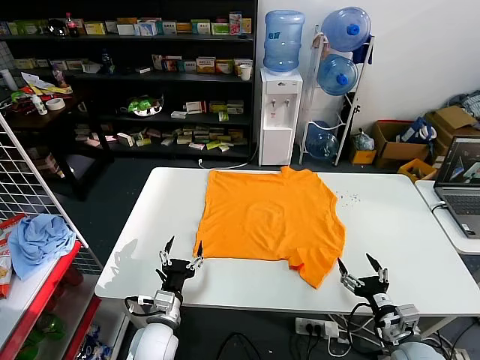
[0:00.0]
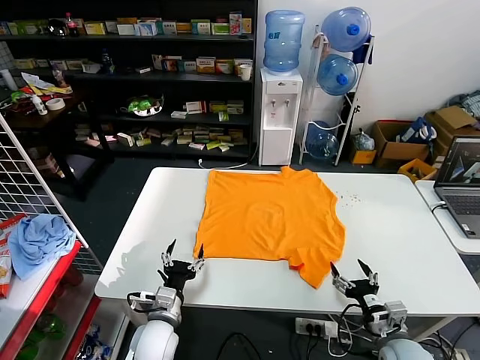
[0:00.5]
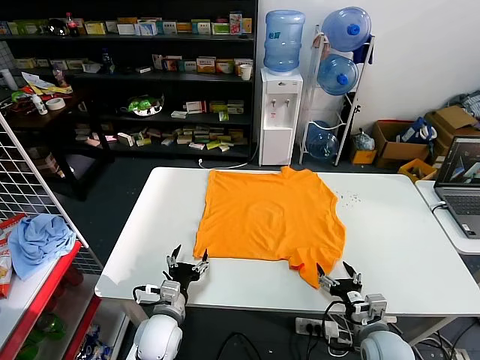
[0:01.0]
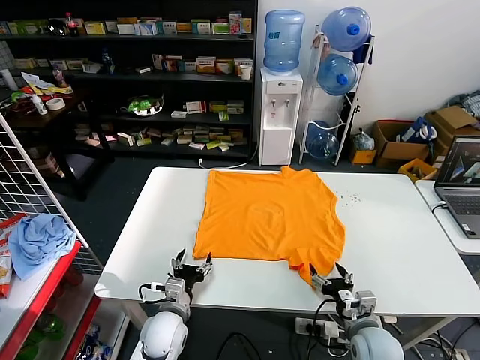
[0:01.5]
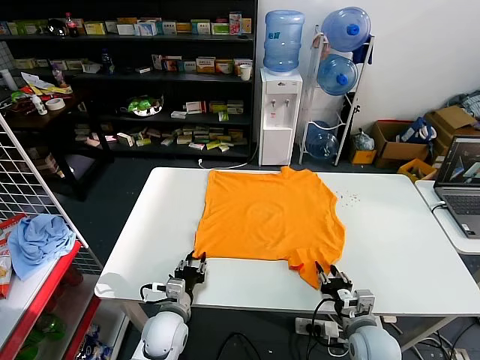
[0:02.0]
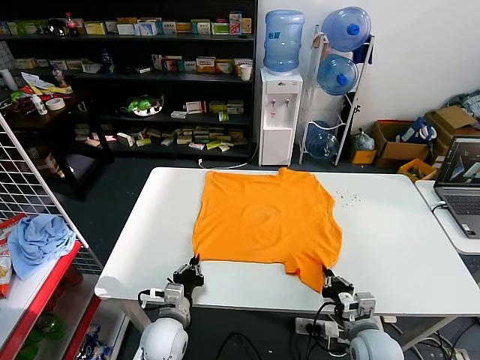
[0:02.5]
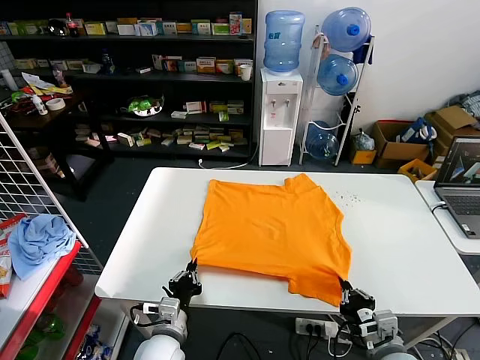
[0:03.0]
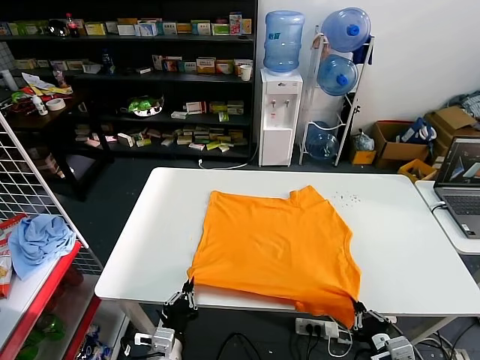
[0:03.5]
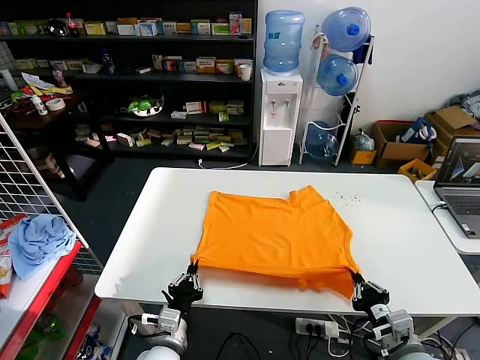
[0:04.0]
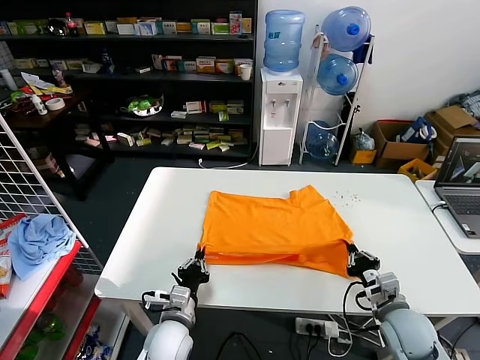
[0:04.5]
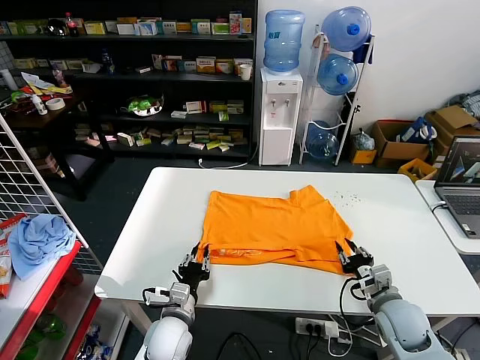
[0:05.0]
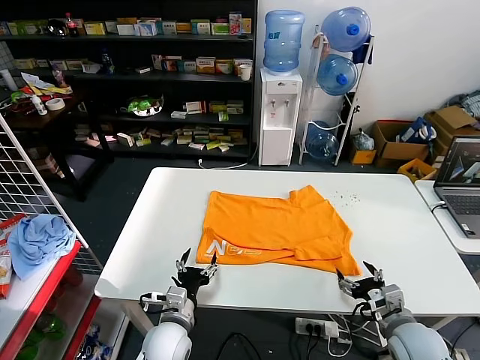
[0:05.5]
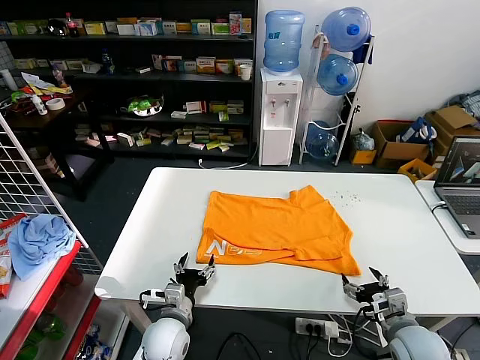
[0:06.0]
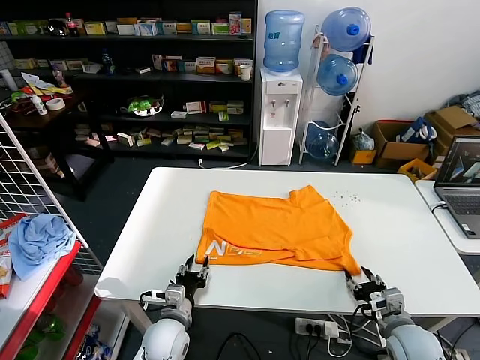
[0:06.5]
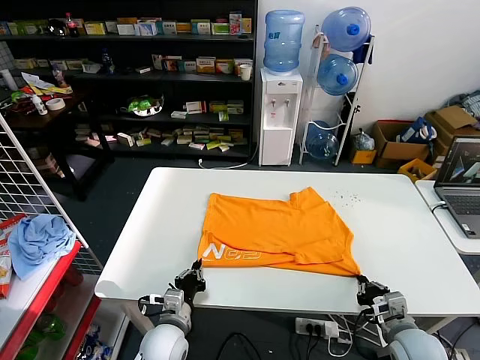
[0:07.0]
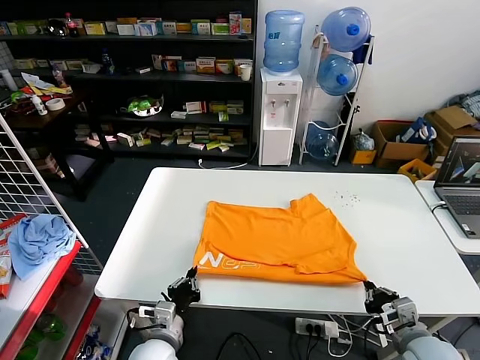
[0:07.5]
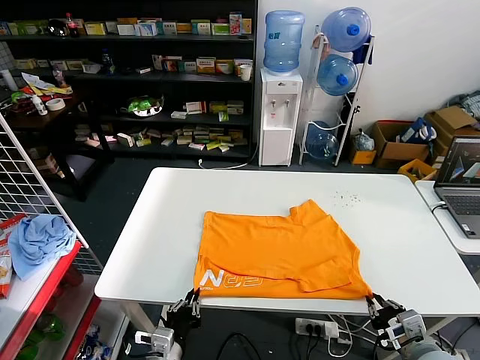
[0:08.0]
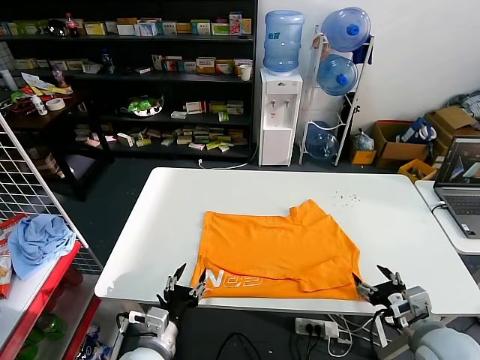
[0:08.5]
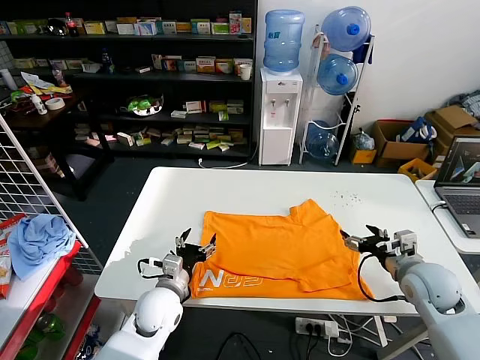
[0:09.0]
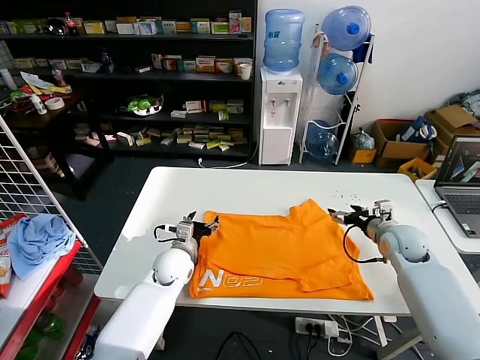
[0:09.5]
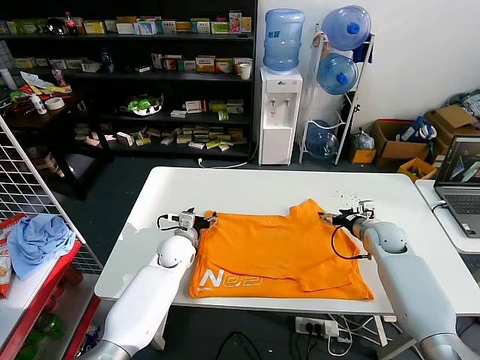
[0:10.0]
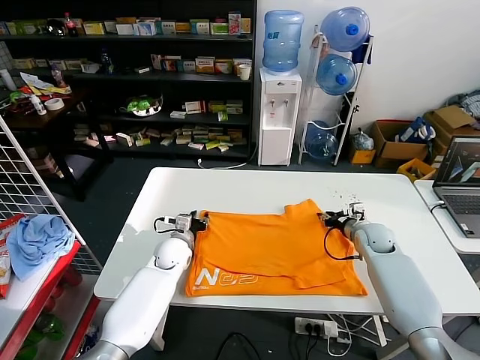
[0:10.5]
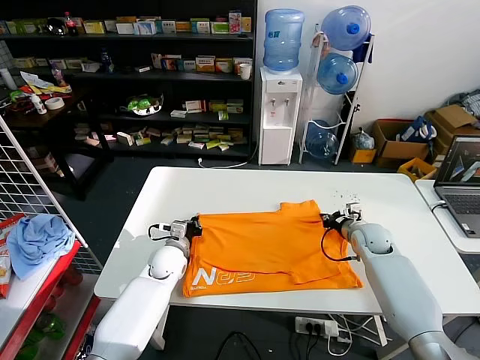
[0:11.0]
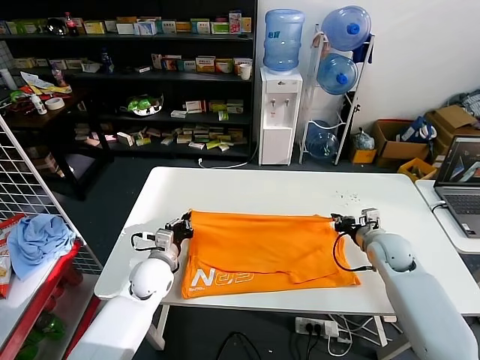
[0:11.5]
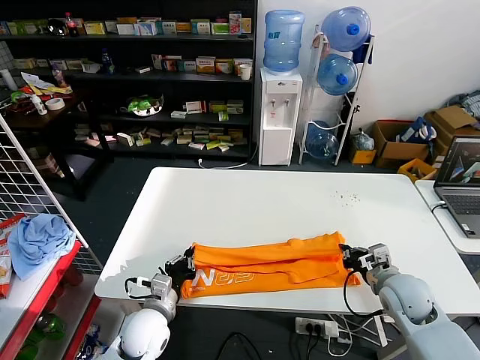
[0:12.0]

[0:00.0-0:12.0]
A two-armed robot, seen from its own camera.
Task of the whole recording: fold and organize the clothes.
Step, 0:00.0 to 0:01.5: use both grippers simultaneously to clamp the lower edge of the clothing fabric.
0:02.0 to 0:04.0: The left gripper travels backward by roughly 10 cm, and closes. Meanwhile the right gripper heads upward and backward, covering some 10 cm.
0:04.0 to 0:06.0: The left gripper shifts roughly 5 cm forward, and opens its fingers, while the right gripper opens its fingers.
0:06.0 to 0:08.0: The right gripper heads backward, covering about 5 cm, and closes its fingers; the left gripper travels backward by some 10 cm, and closes up.
0:08.0 to 0:10.0: The two grippers go about 30 cm forward. The left gripper opens. The right gripper opens up.
0:10.0 to 0:12.0: The grippers both shift backward by roughly 20 cm. The right gripper closes its fingers, while the left gripper closes.

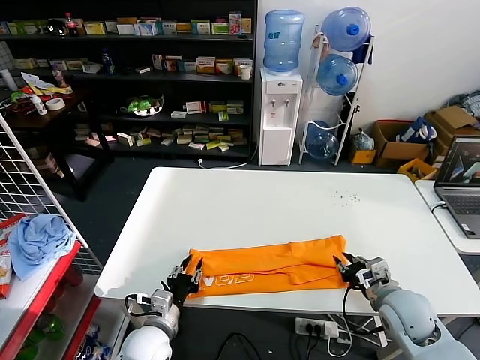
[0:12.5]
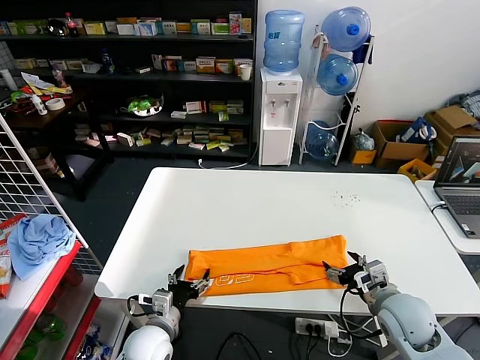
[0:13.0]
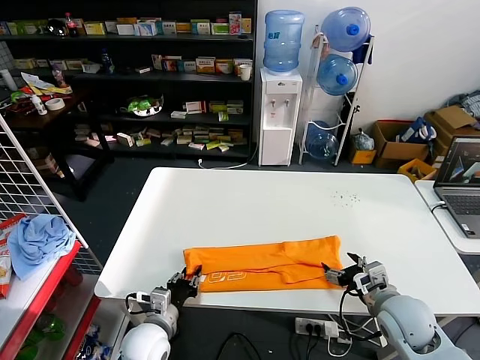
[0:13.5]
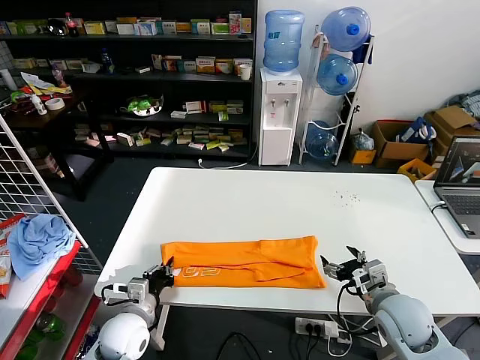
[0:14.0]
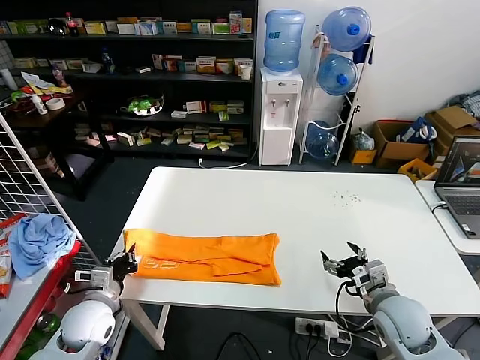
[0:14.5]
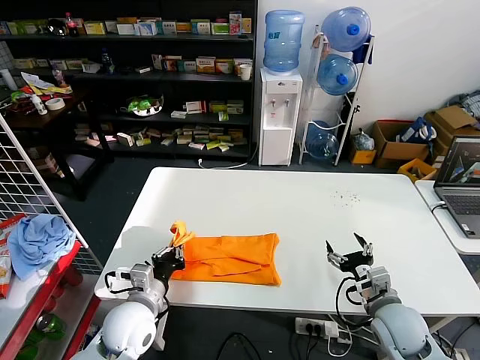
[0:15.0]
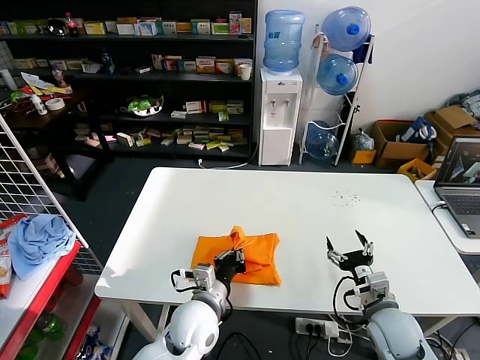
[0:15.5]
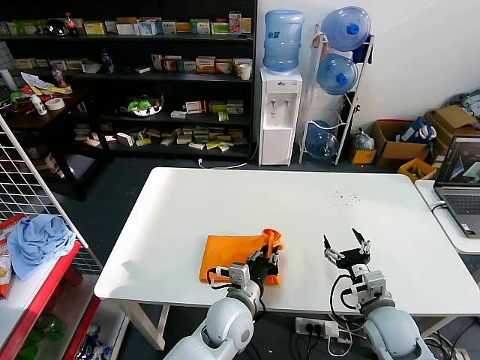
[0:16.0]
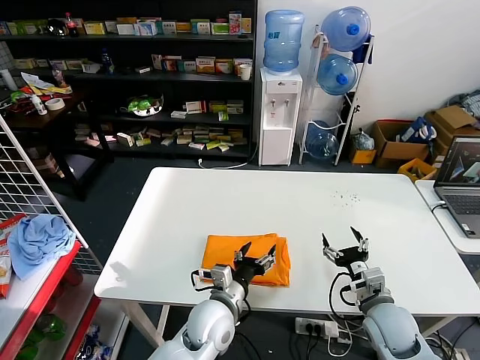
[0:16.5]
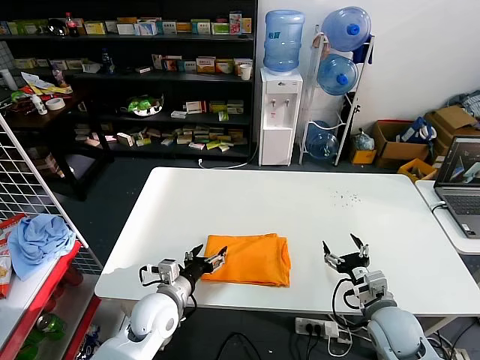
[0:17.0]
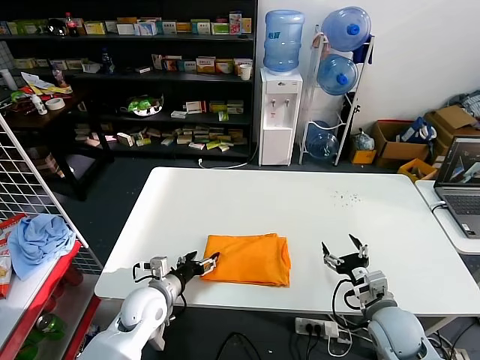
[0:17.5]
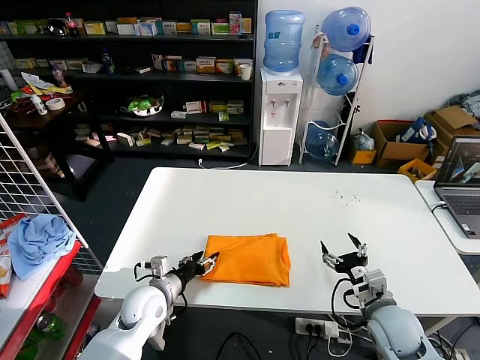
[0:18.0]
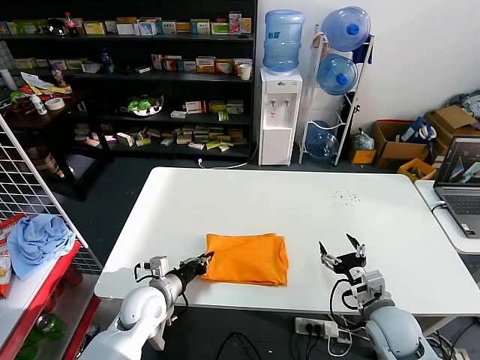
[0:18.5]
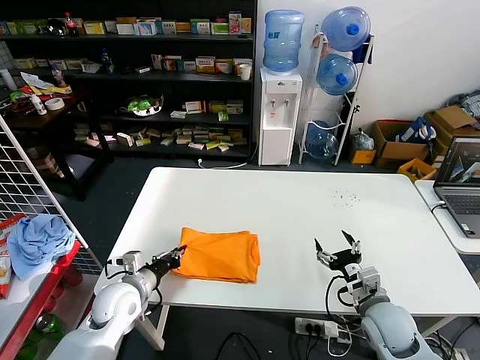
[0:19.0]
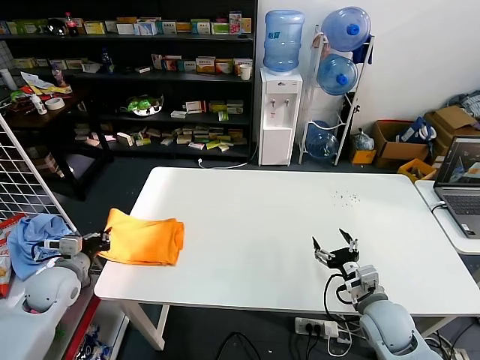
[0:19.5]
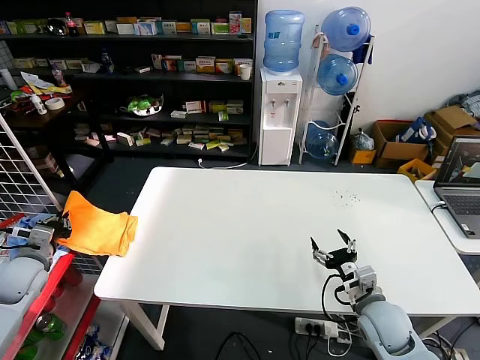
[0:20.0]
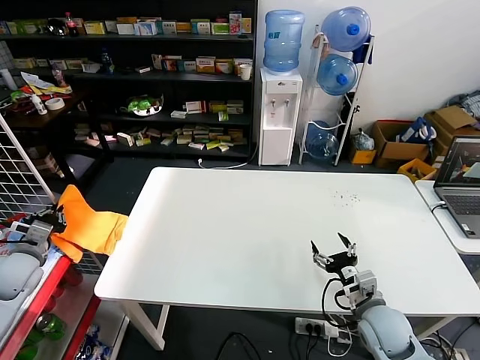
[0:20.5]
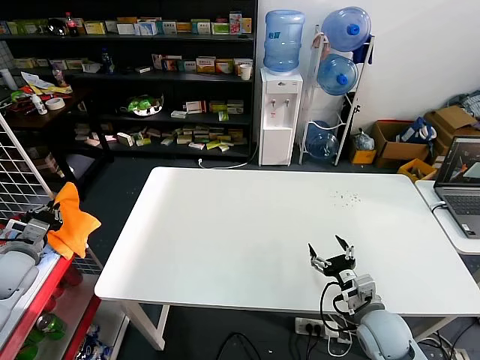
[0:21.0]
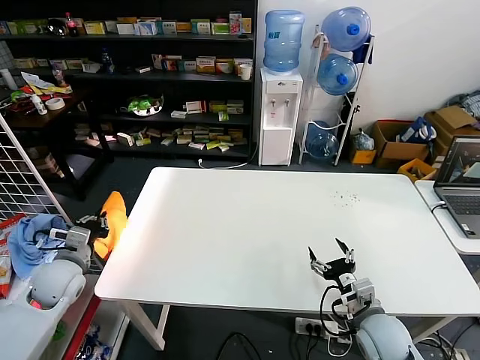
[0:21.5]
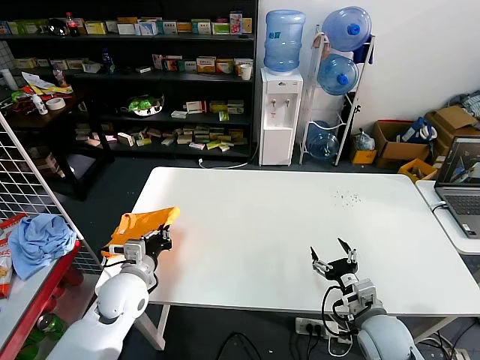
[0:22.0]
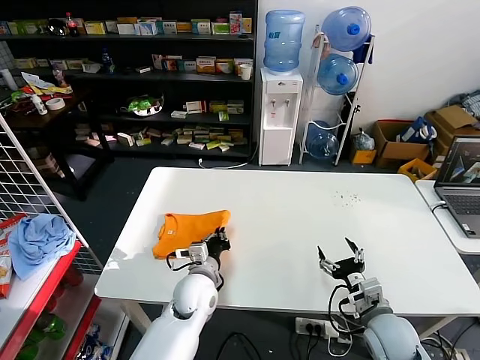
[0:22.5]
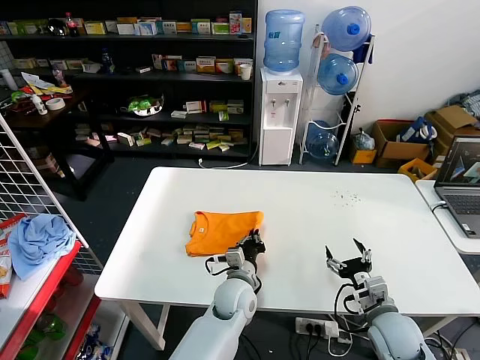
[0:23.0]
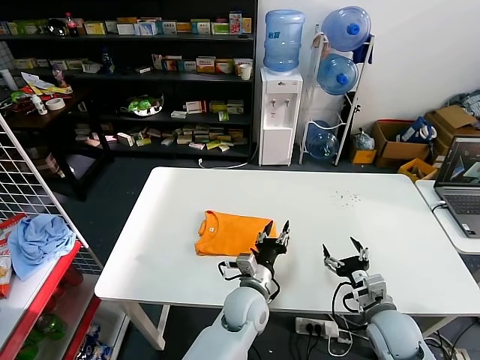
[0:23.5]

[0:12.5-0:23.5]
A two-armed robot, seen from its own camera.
Task of the whole recording: fold and organize the clothes.
Step, 0:12.5 to 0:23.5: Flip the folded clothes over with left gripper.
0:12.5 to 0:14.5: The left gripper travels to the left by approximately 15 cm, and closes its fingers. Meanwhile the right gripper opens its fingers.
0:14.5 to 0:16.0: The left gripper goes some 30 cm to the right.
0:16.0 to 0:18.0: The left gripper moves to the left, some 20 cm, and opens.
0:18.0 to 0:20.0: The left gripper shifts approximately 25 cm to the left, and closes up.
0:20.0 to 0:21.5: The left gripper is displaced to the right by about 5 cm.
0:21.5 to 0:23.5: The left gripper moves to the right, some 40 cm, and opens up.

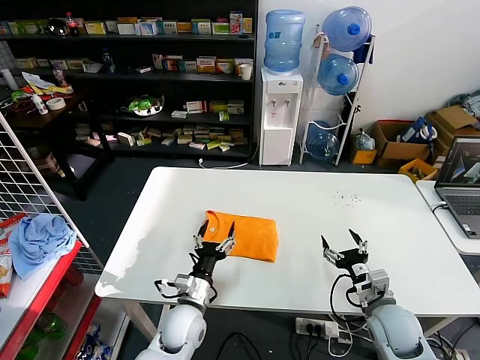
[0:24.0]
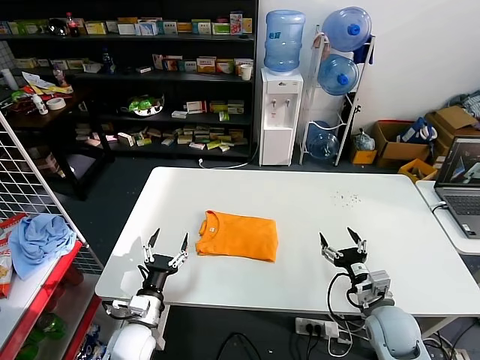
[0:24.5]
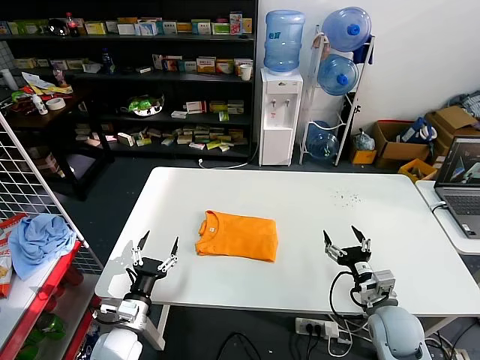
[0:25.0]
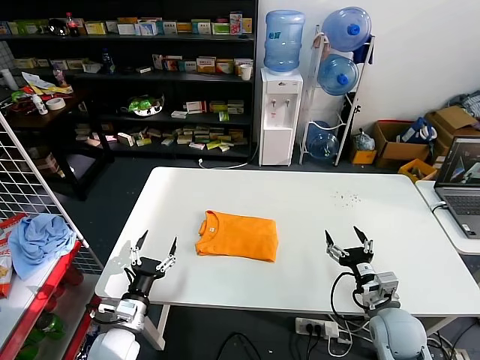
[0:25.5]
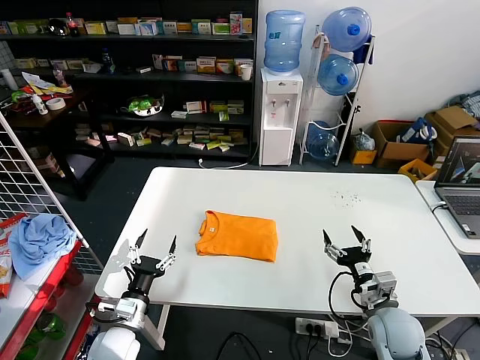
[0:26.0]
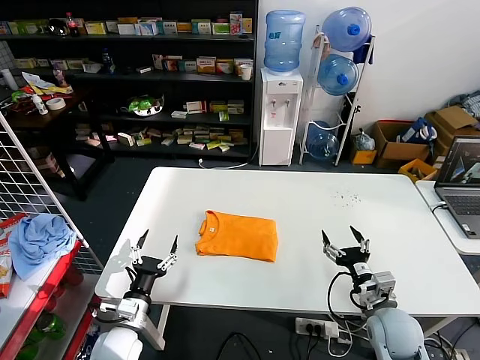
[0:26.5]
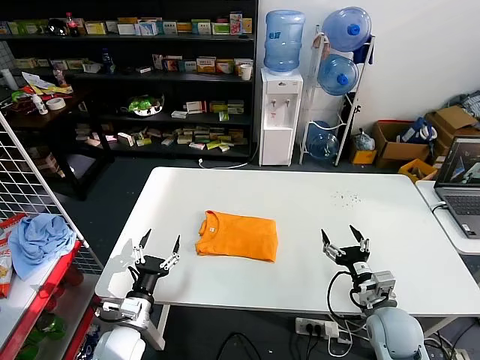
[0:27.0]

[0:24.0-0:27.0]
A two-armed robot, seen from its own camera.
Task of the whole recording: fold and organize the clothes.
Step, 0:24.0 to 0:27.0: Drag the clothes to the center of the table.
0:24.0 to 0:25.5: The left gripper heads to the left, covering some 15 cm.
0:25.5 to 0:27.0: Neither gripper changes place.
